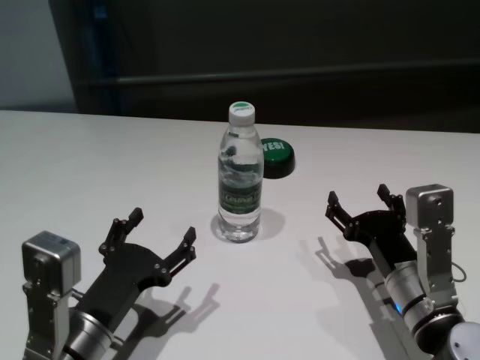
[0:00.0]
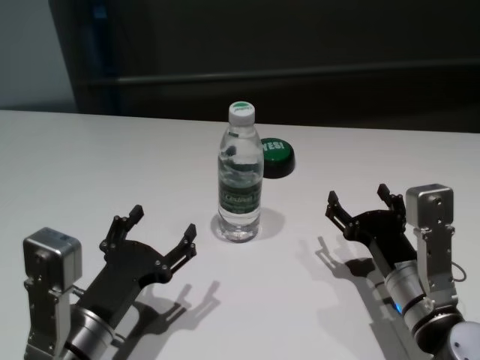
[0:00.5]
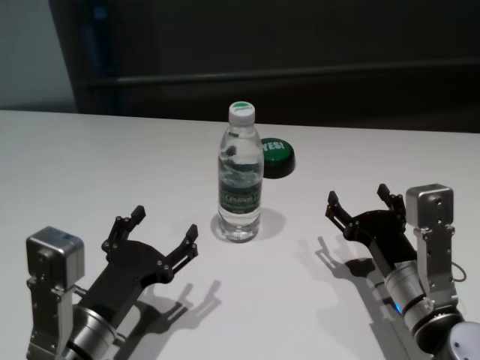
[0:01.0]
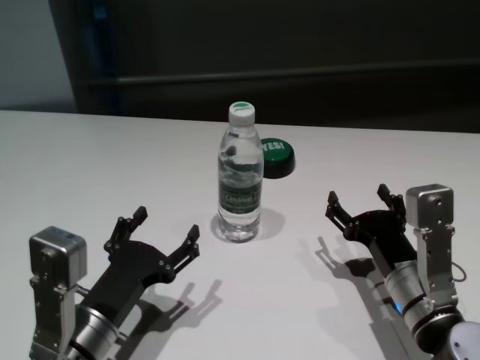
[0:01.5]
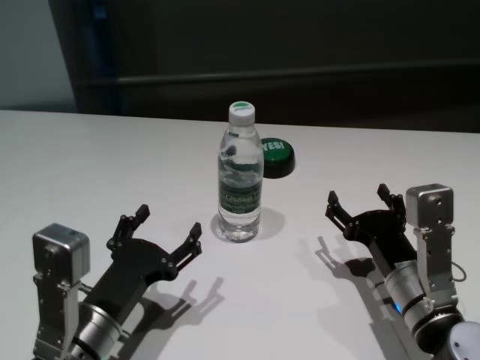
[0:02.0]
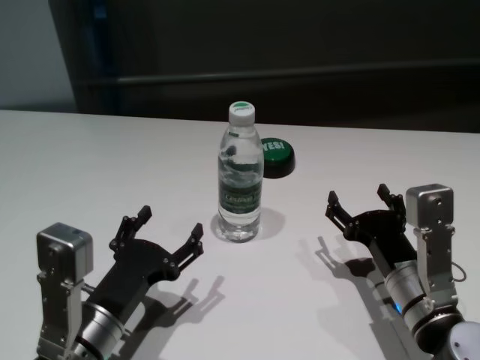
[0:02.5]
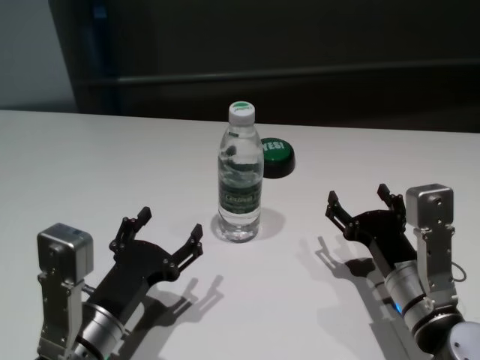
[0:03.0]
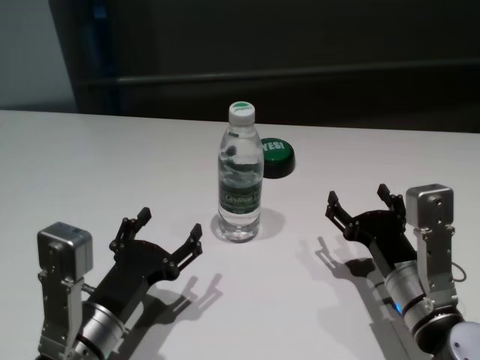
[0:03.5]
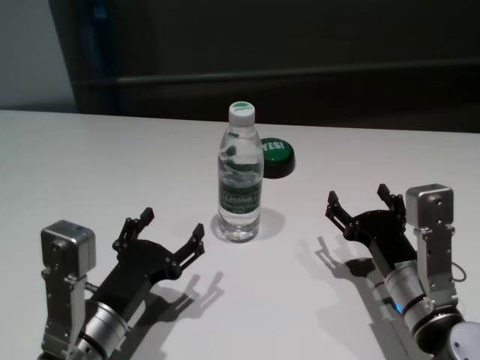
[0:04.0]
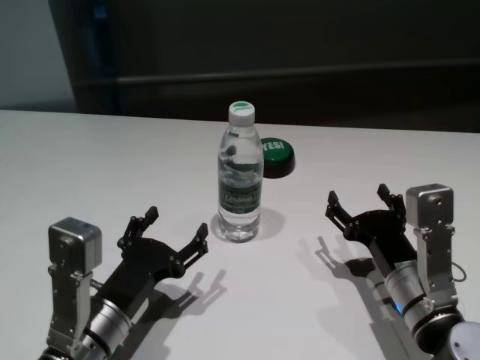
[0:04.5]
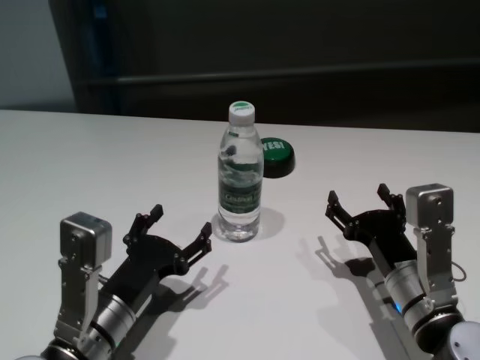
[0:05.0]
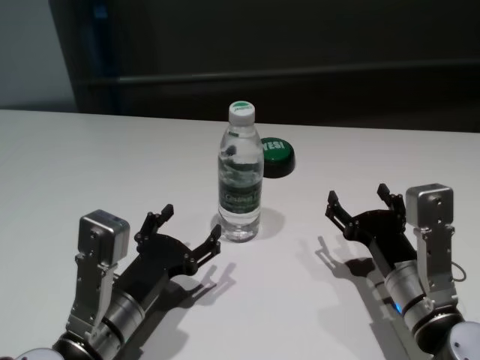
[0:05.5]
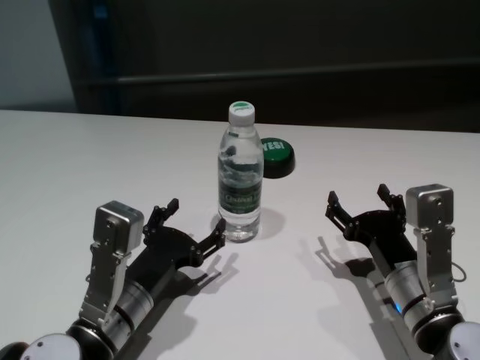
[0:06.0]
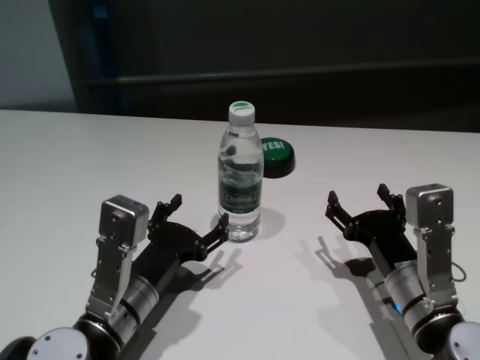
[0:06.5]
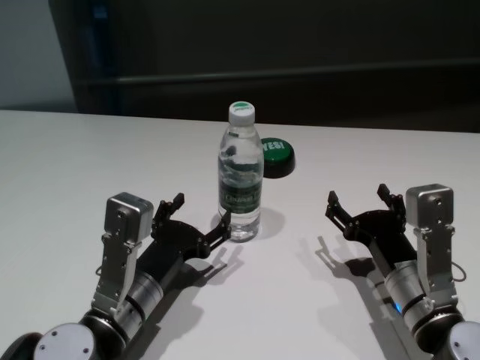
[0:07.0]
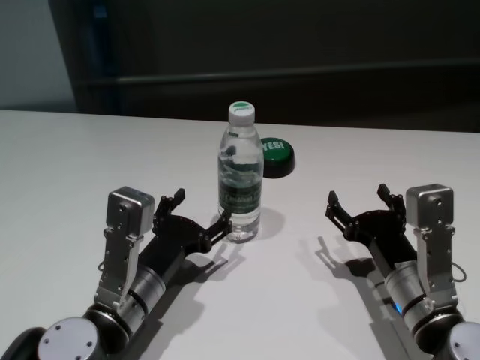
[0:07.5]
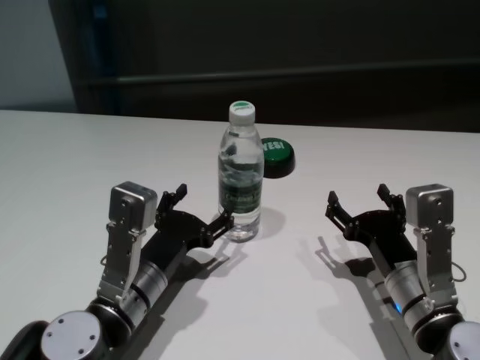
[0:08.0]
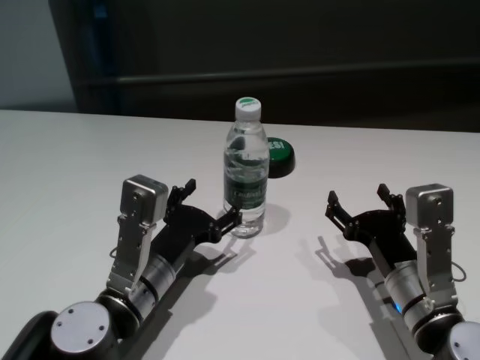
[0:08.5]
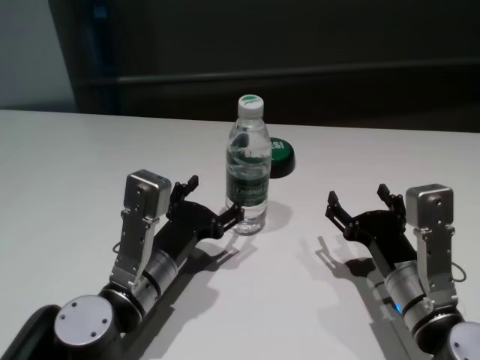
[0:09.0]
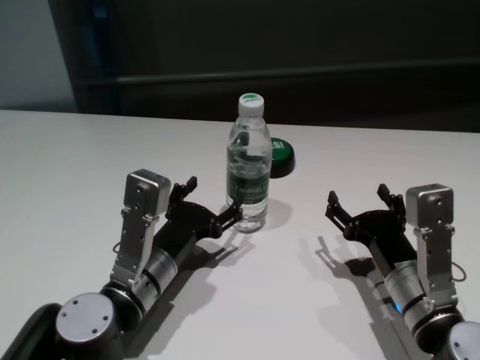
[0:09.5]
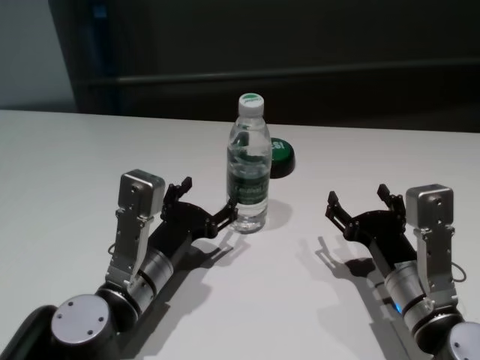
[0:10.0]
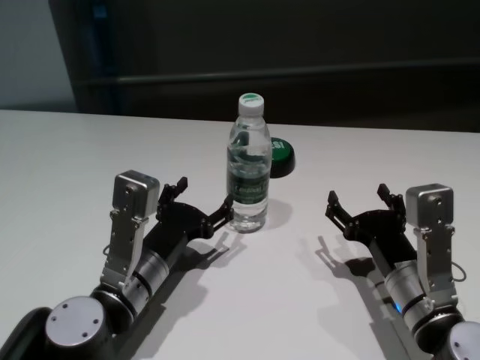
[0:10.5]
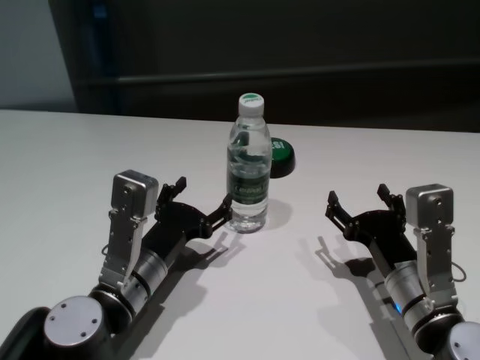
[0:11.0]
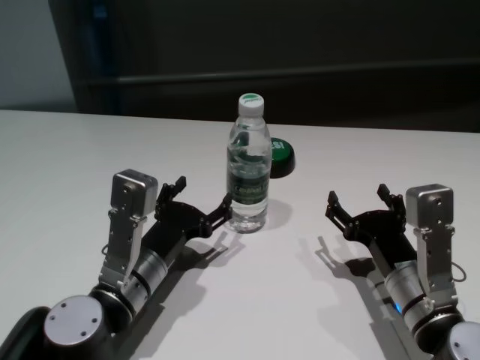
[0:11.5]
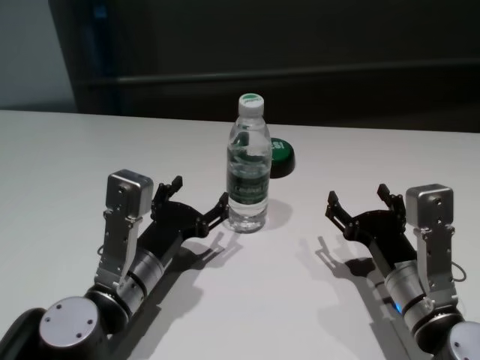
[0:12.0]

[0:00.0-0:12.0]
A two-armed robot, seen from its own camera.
Task of the whole recording: return to a safe position after touching an obstacle with your arm on the white table.
Step, 0:00.0 to 0:10.5: Touch the bottle with left gripper.

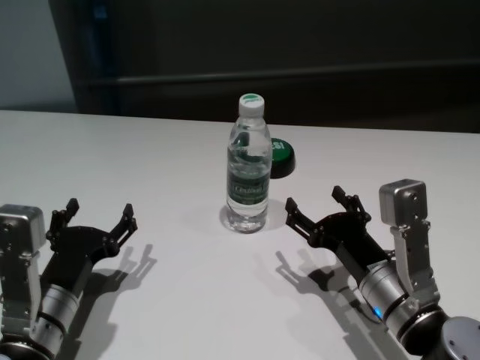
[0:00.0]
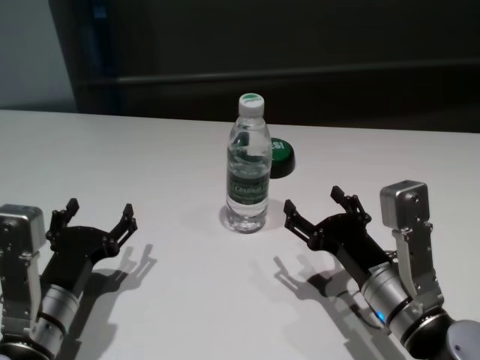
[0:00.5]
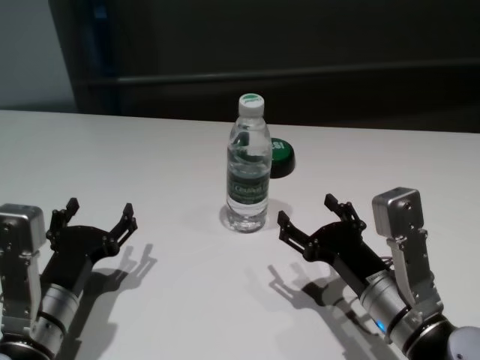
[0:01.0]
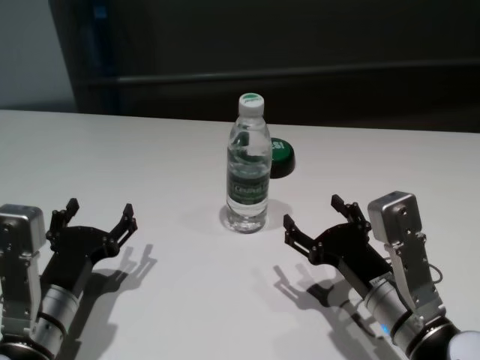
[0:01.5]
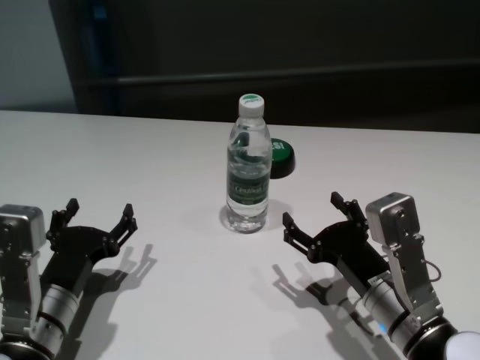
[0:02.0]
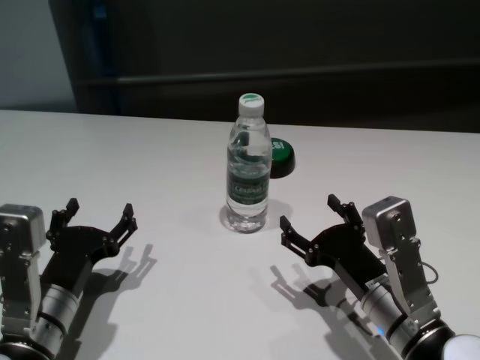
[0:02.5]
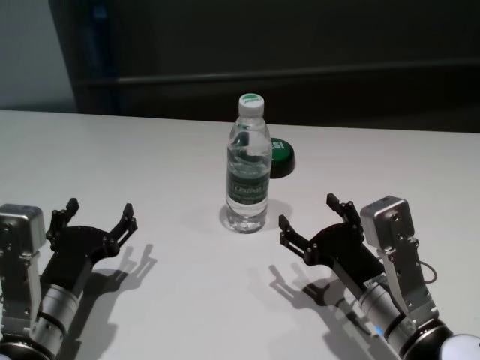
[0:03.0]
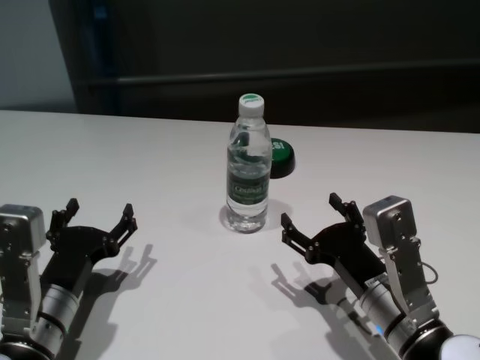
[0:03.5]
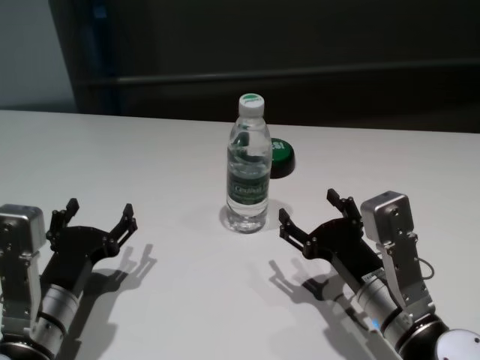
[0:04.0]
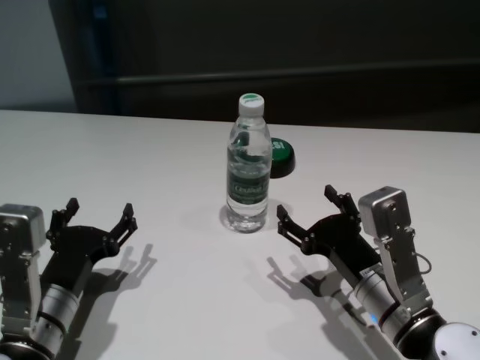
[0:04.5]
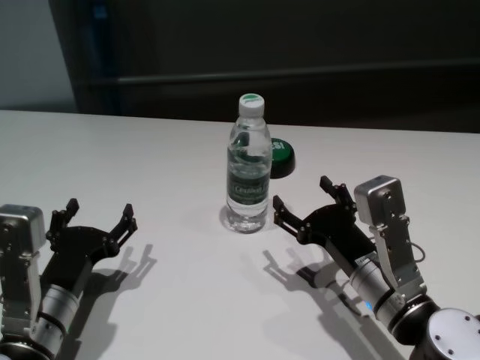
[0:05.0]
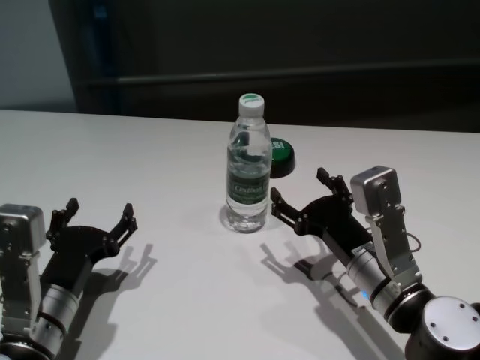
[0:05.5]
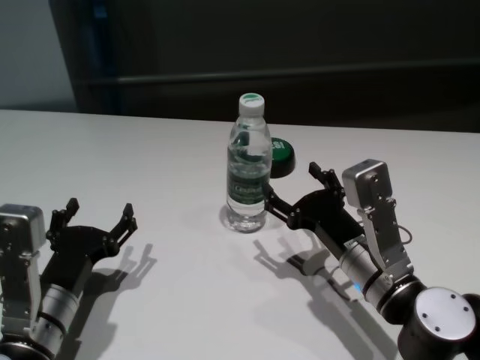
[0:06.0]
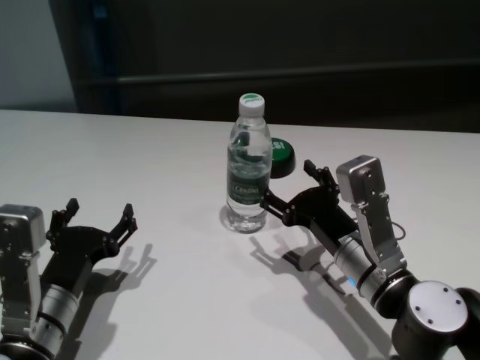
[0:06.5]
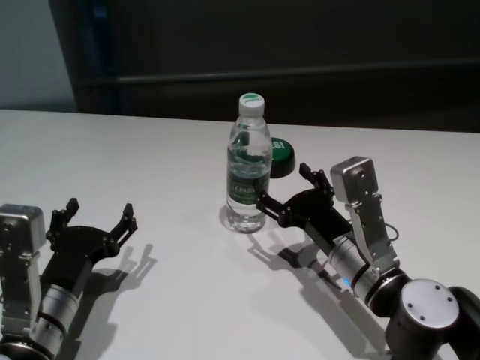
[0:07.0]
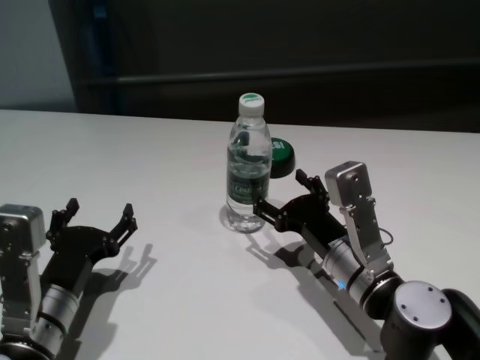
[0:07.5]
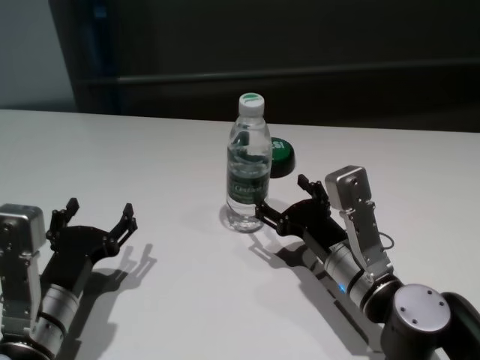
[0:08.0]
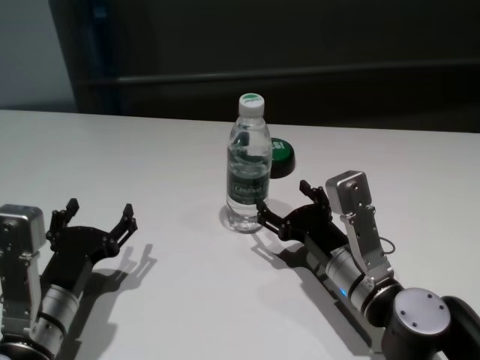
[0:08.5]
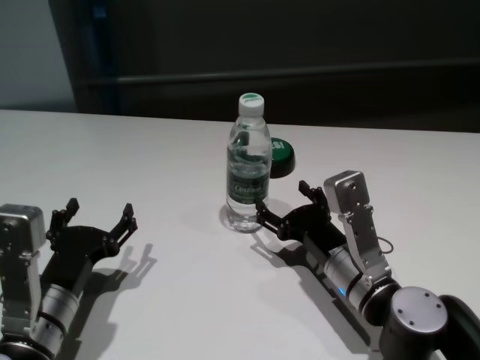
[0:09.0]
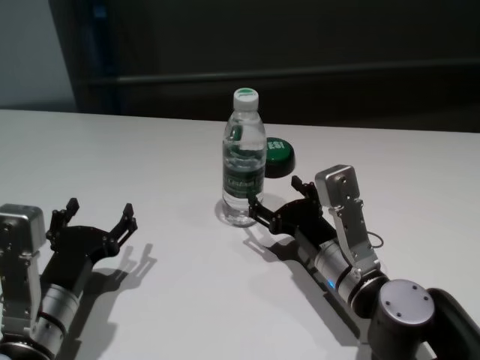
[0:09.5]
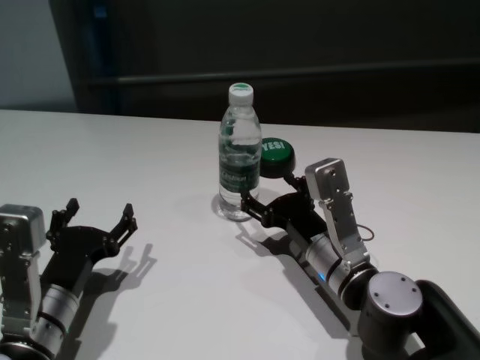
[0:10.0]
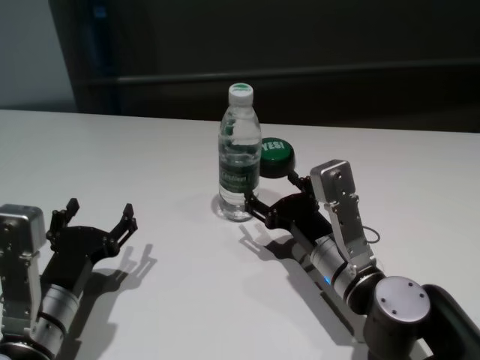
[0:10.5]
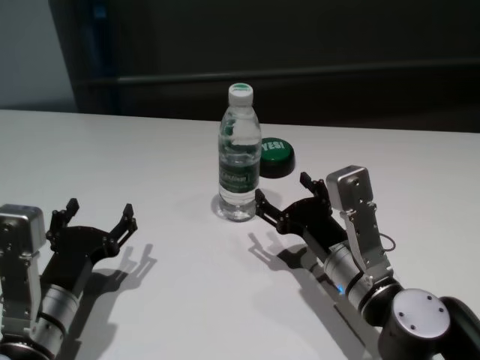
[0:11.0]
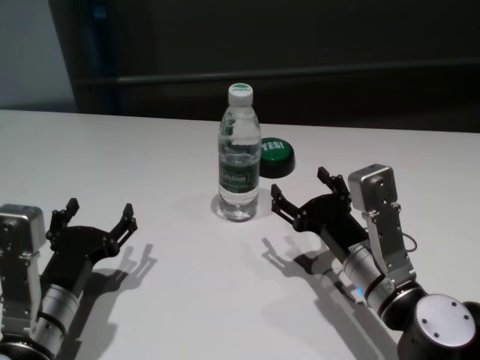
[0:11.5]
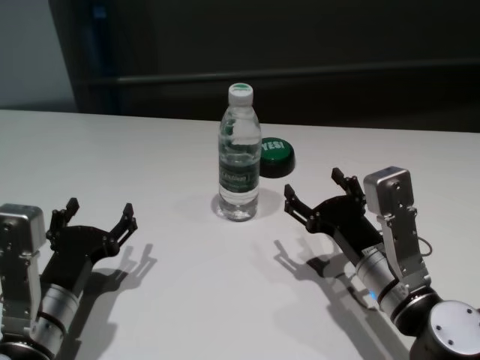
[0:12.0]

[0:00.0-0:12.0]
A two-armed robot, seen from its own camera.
Task of the whole recording: return to a safe position after touching an obstacle with your arm on the white table.
Step, 0:00.0 to 0:11.5: Touch the bottle with right gripper.

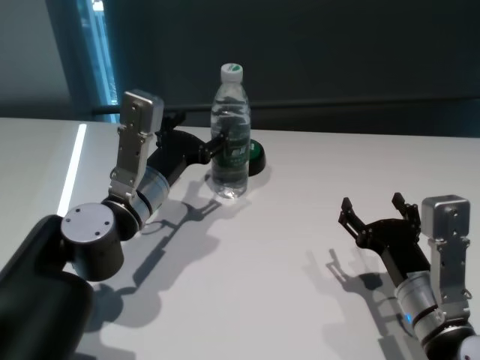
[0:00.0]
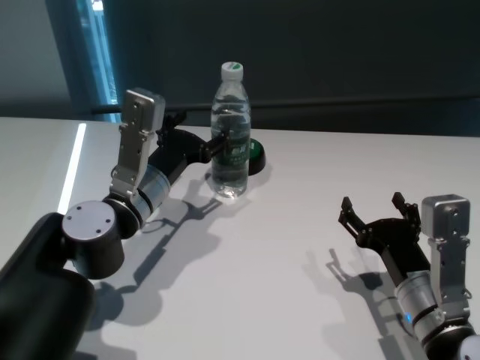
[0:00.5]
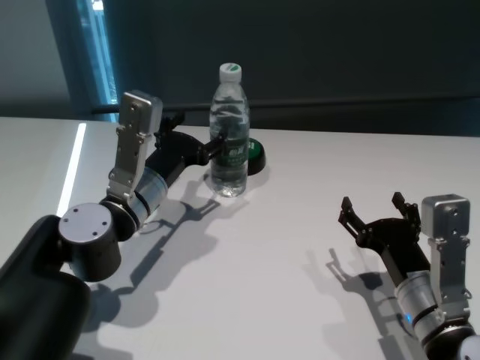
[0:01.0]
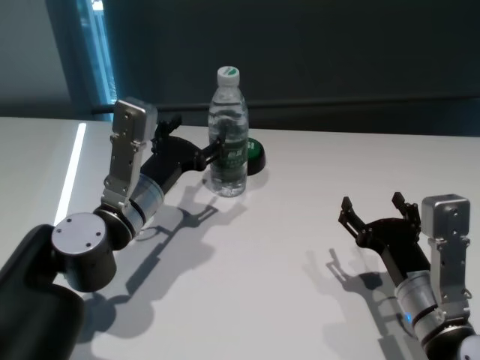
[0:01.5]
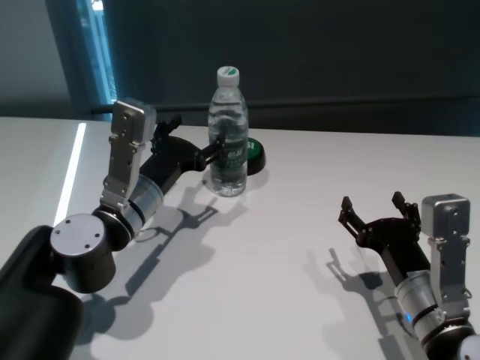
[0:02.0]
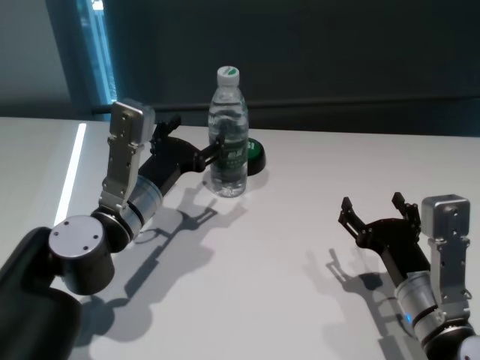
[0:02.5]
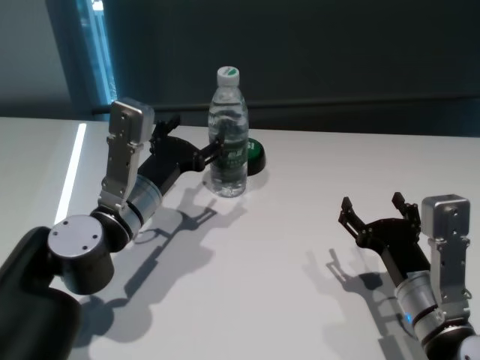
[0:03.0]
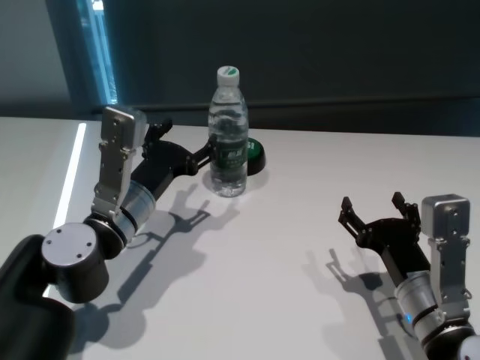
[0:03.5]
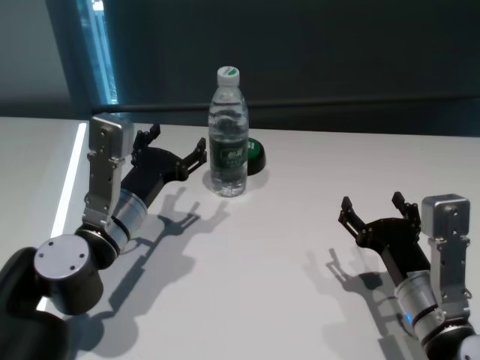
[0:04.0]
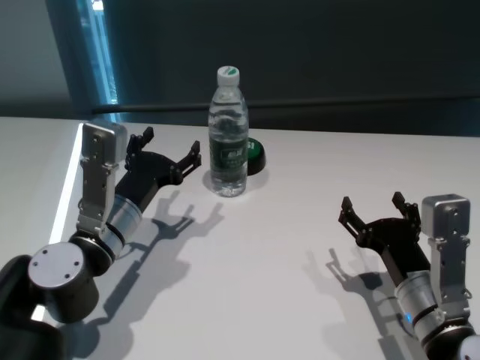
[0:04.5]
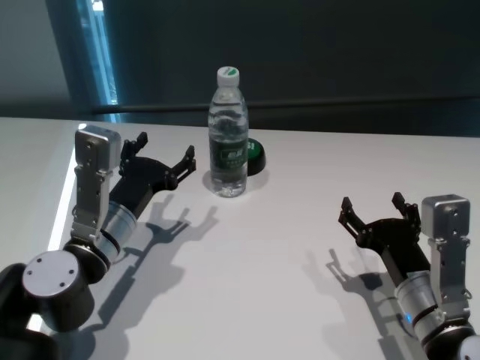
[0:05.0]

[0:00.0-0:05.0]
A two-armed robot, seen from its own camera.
Task of the whole recording: return to a safe position after touching an obstacle with your arm on the white table.
Step, 0:00.0 to 0:04.0: Touch the bottle with left gripper.
